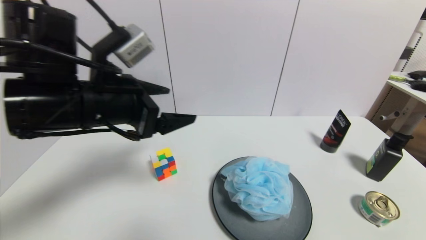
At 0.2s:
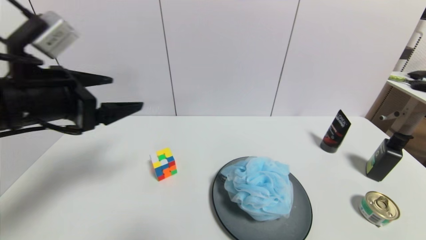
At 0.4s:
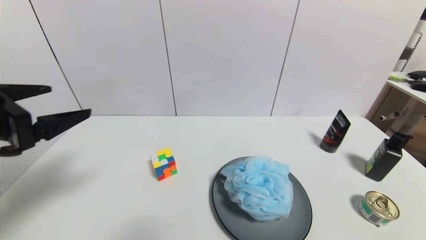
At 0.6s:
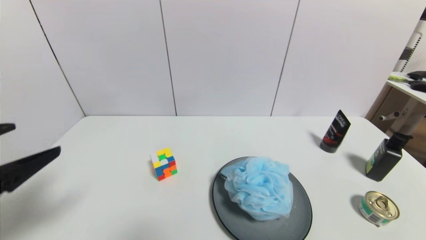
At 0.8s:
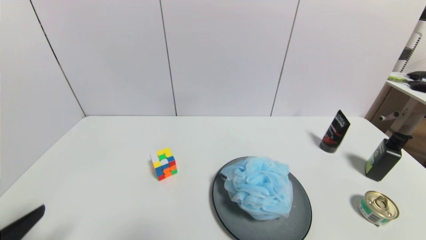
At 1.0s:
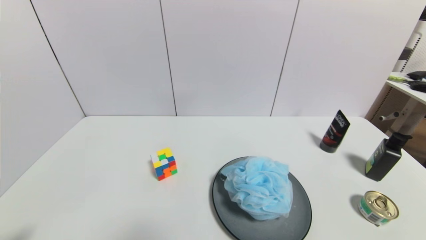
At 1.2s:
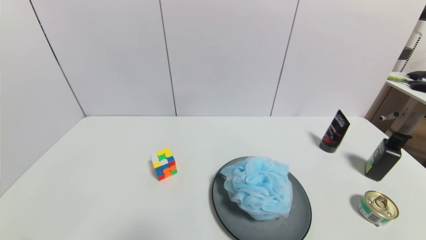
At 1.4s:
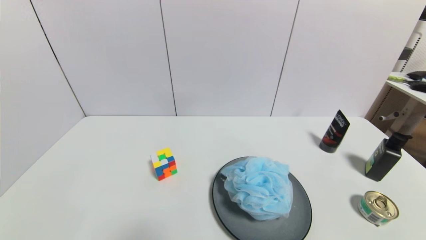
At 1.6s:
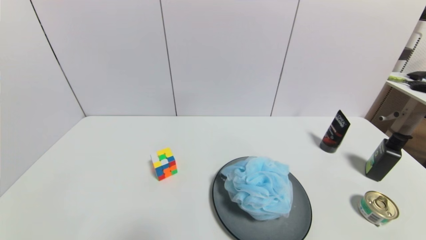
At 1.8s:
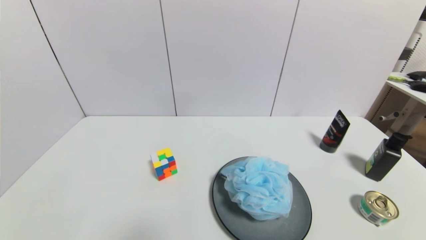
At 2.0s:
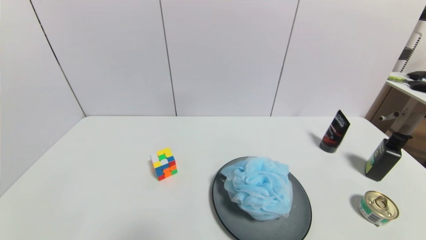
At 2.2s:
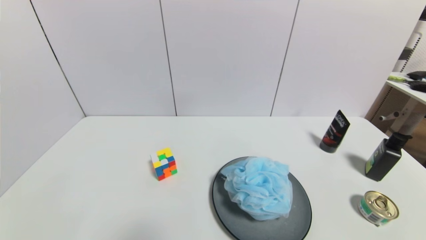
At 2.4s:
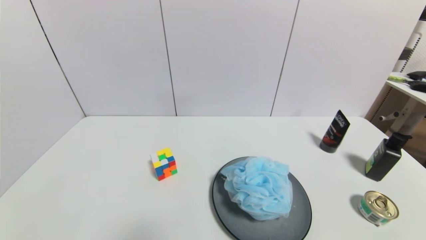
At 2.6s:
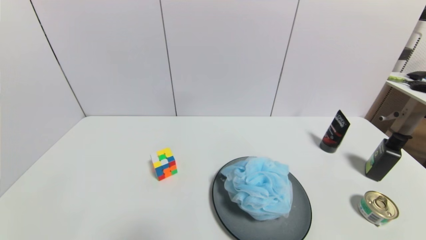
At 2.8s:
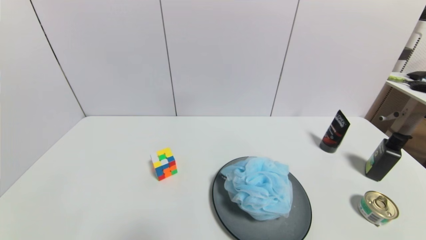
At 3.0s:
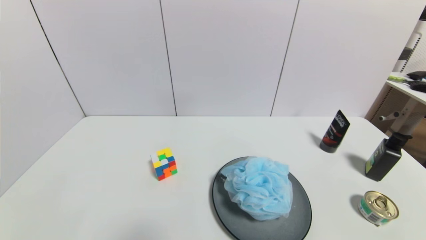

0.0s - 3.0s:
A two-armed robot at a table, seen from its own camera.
Task of the whole recording: use a gripper to pick the target object and place on the gray plate.
0.0s - 1.6s: The left gripper goes some 35 cm backward, downward and to the left.
